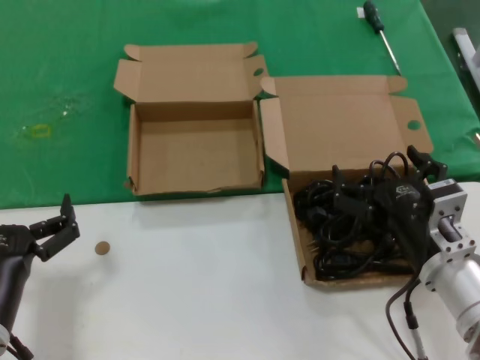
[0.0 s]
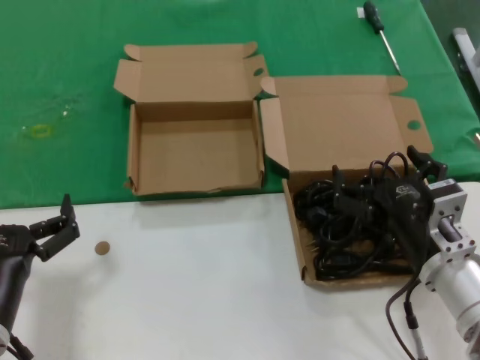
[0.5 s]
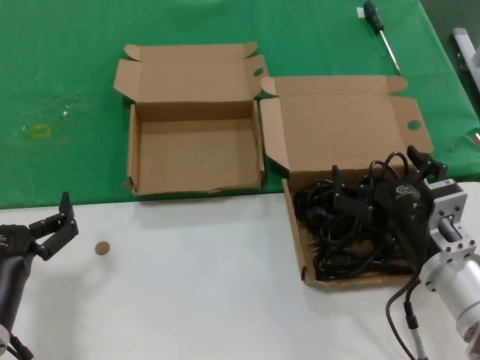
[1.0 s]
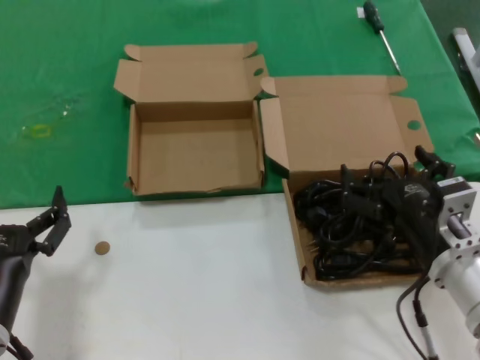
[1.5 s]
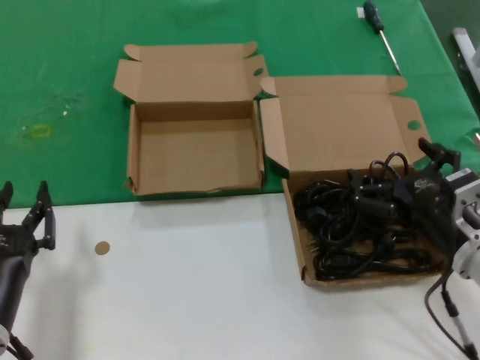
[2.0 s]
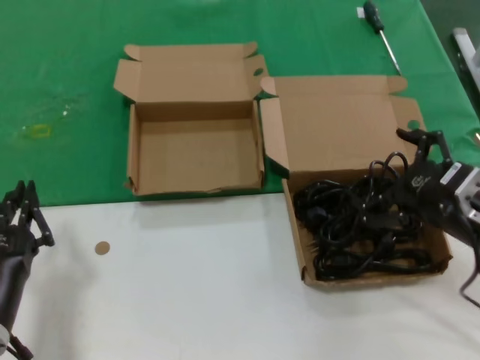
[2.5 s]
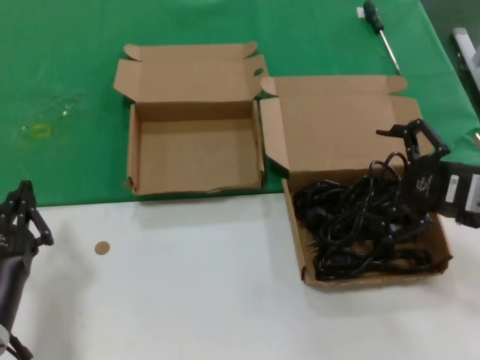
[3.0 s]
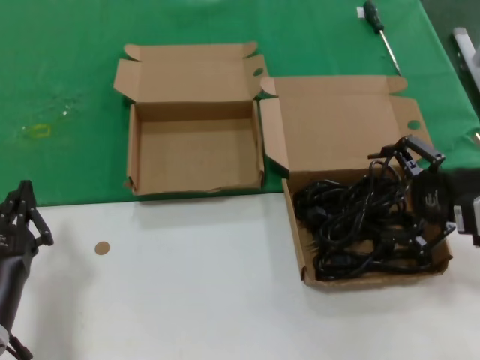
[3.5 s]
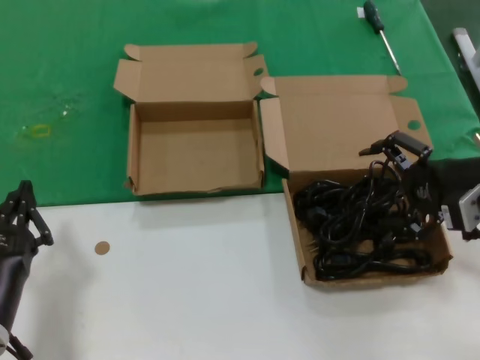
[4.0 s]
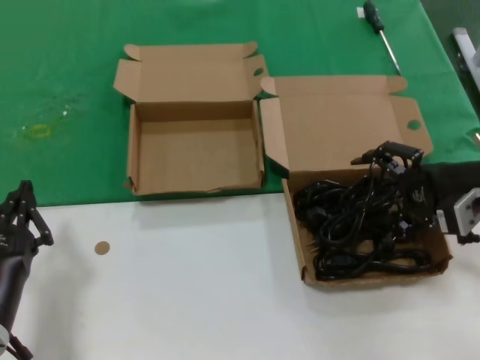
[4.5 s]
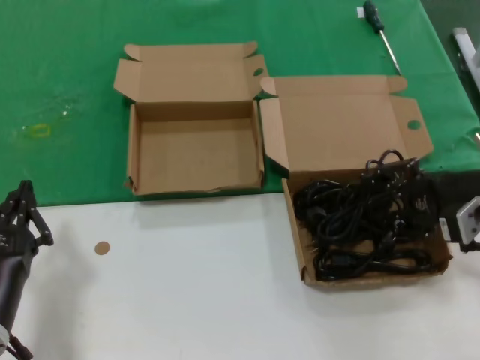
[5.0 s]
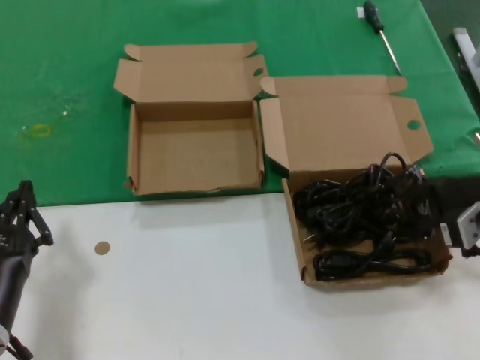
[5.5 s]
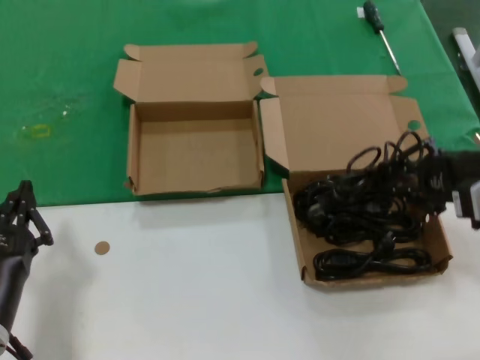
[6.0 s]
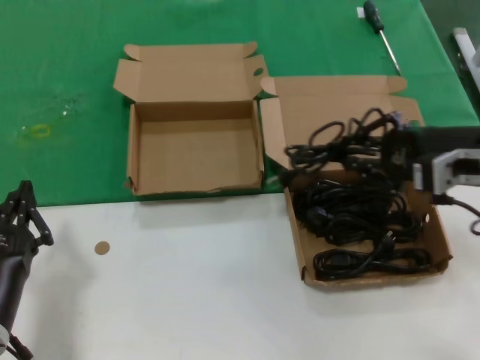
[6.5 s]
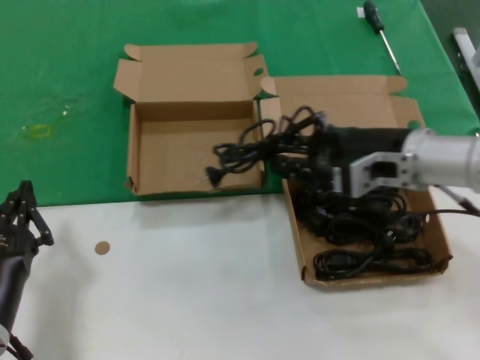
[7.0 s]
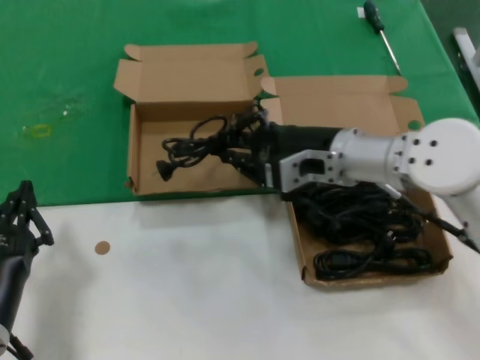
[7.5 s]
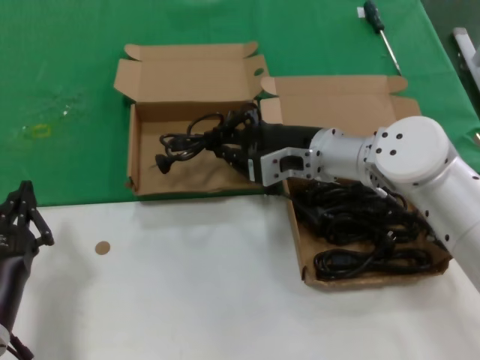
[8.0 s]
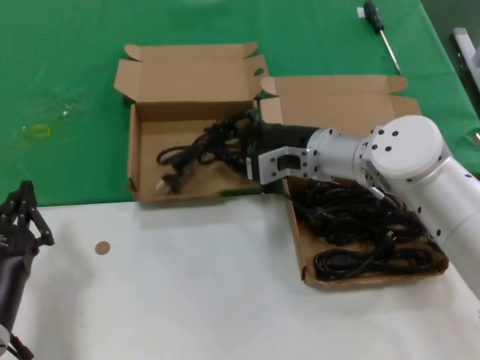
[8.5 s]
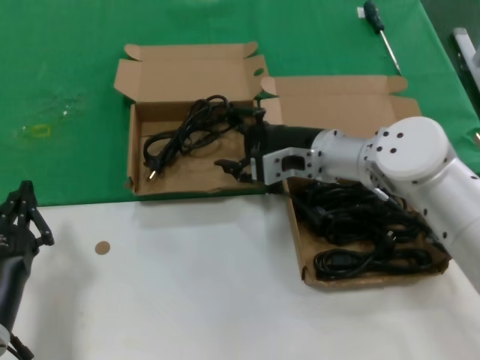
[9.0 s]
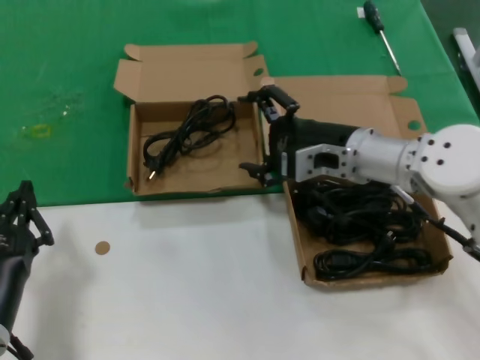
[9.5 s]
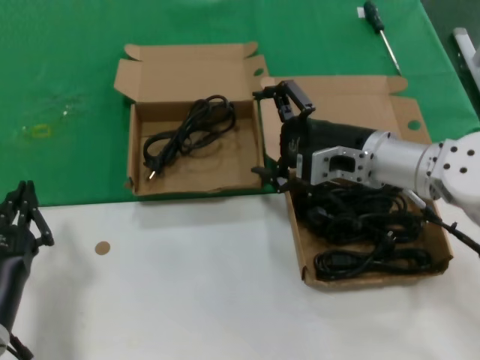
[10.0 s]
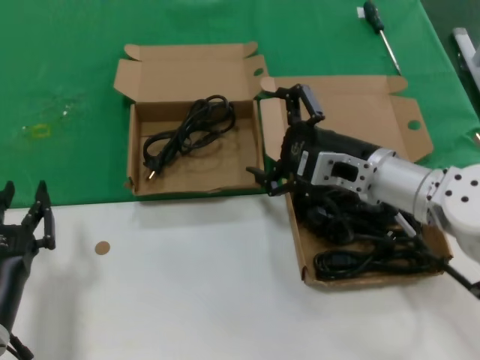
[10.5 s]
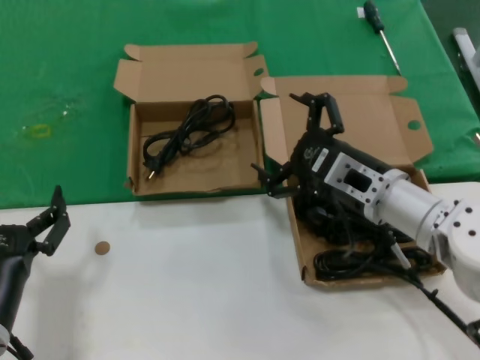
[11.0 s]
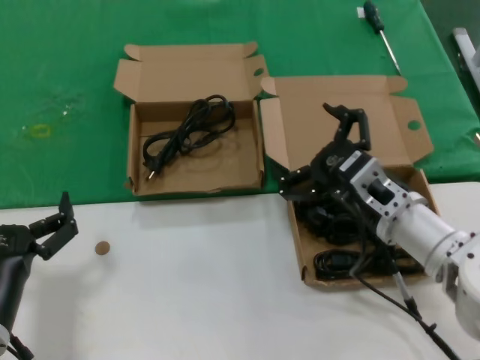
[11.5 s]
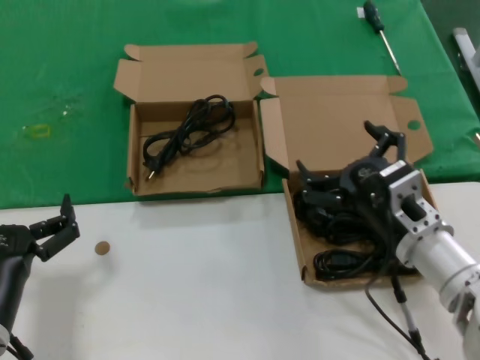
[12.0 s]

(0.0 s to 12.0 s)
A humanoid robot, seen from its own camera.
Task of the whole recording: take the parts from the box containing them and put them into an empty box.
Step, 0.0 s - 5.5 s: Grasp the data cable.
Step, 6.0 s - 8.5 s: Place the data cable in the another box.
0.0 s - 2.0 s: The hands move only a little.
2.0 s - 4.0 s: The right hand travels upward, to the right and forward by approximately 15 cm.
4.0 s - 6.0 s: The hands stay close to where they were, moving slightly.
6.0 s - 8.0 s: The right hand goes approximately 25 cm to the left and forward.
8.0 s - 10.0 s: The right hand goes about 5 cm to the right.
10.0 s - 12.0 s: The right hand shifts some 15 cm backward and downward.

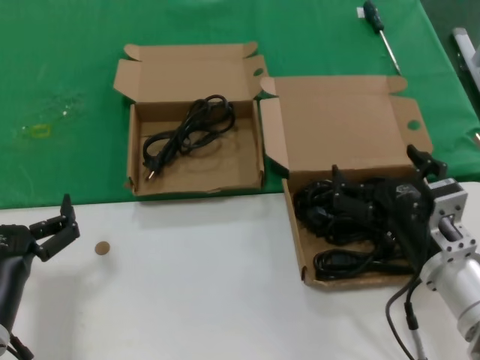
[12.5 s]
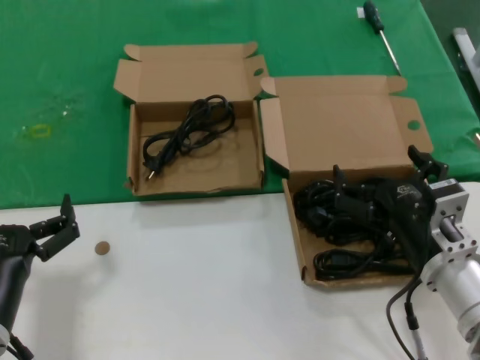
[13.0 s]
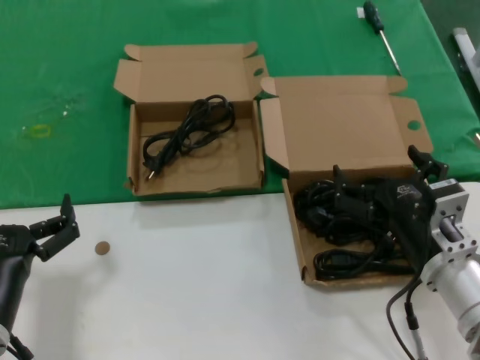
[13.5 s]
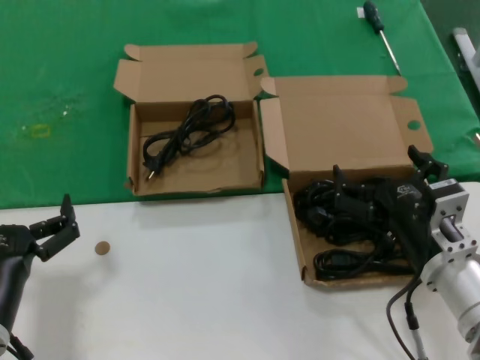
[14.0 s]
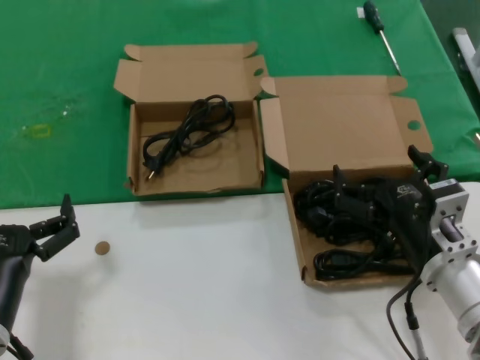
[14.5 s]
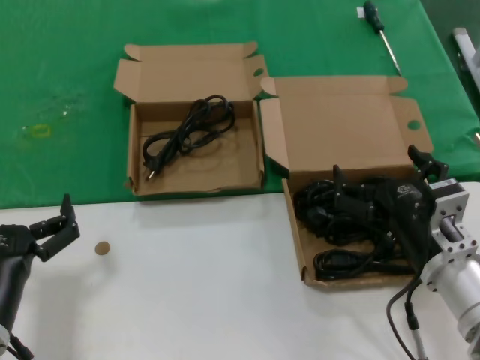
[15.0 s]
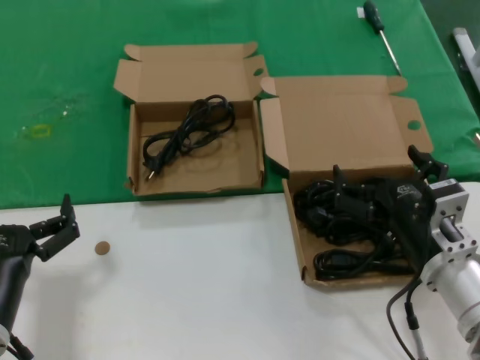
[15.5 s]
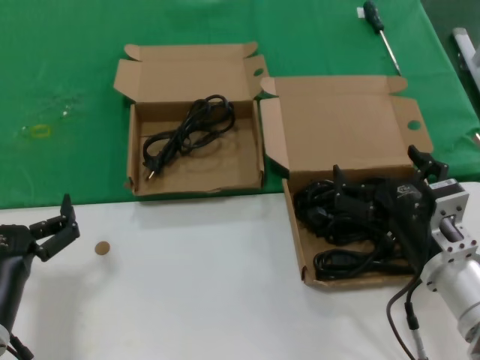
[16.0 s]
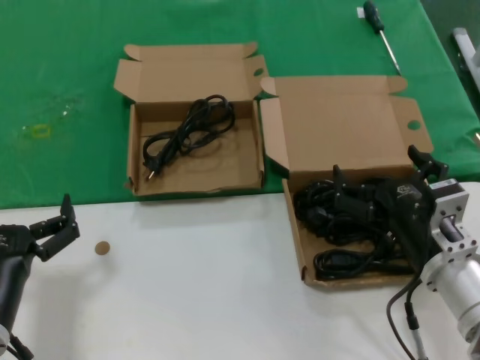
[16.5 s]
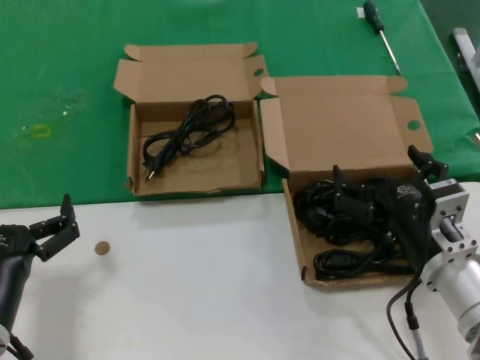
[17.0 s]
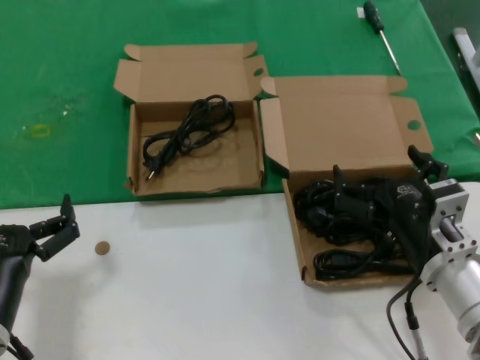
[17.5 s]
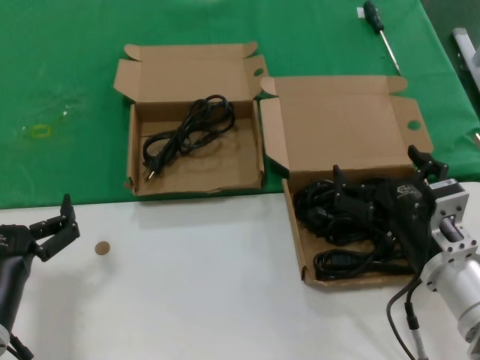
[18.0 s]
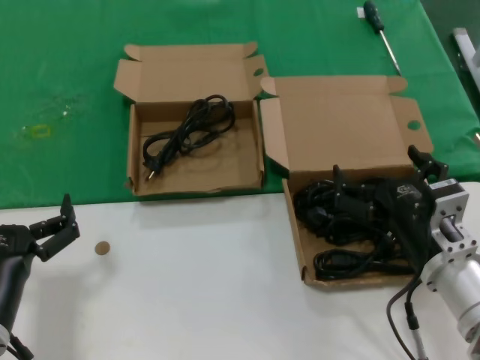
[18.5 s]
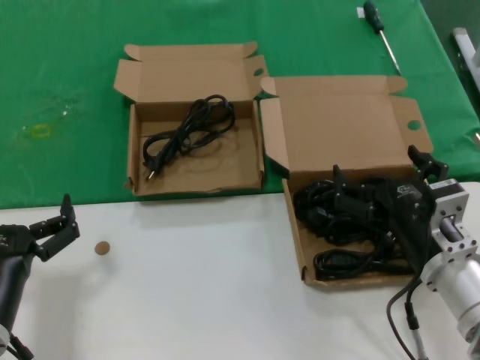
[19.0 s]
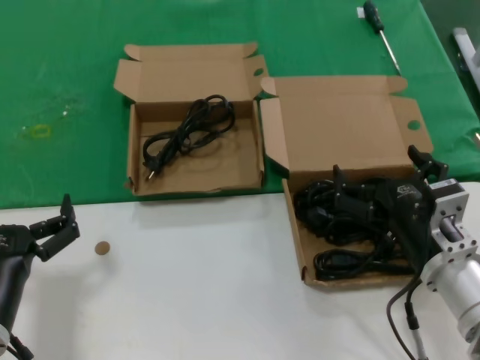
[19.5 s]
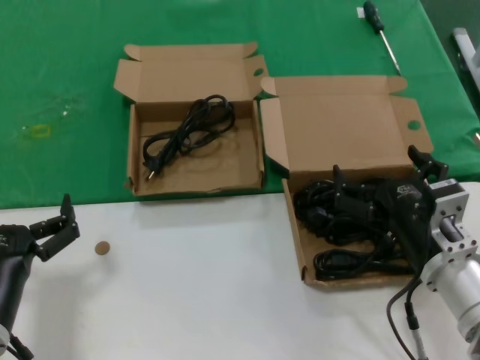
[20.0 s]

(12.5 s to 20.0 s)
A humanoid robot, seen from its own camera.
Task of the whole recording: take the parts from the box containing them and put them into an empty box.
12.5 s - 20.0 s: Both hands stay put.

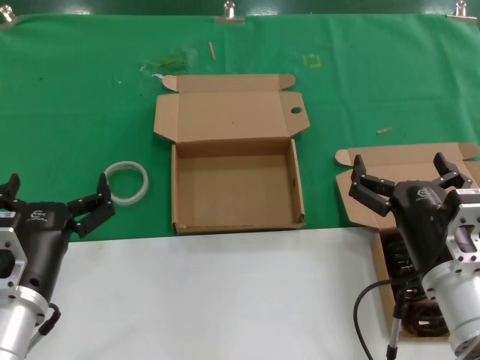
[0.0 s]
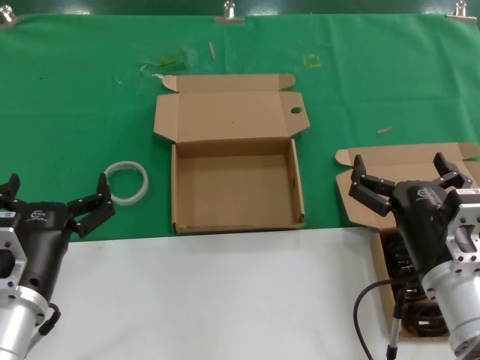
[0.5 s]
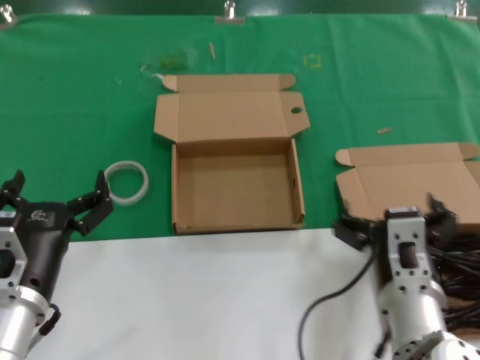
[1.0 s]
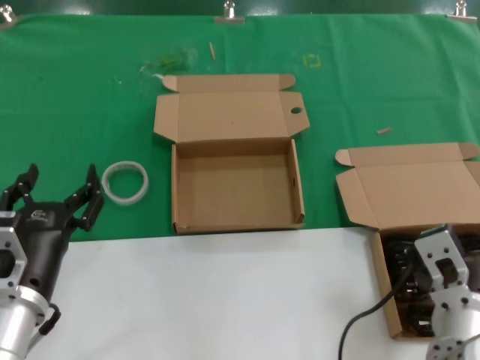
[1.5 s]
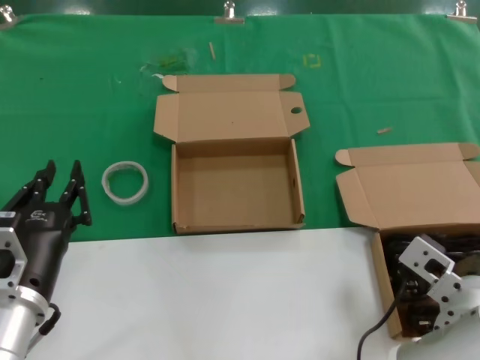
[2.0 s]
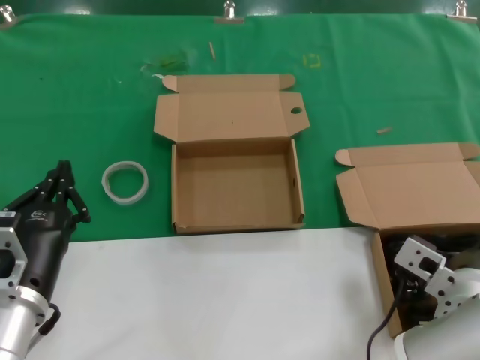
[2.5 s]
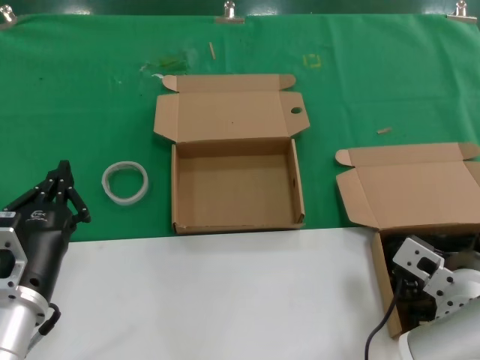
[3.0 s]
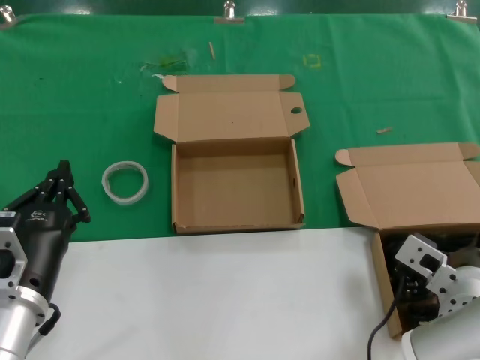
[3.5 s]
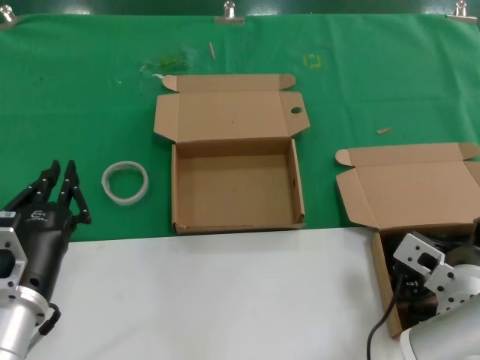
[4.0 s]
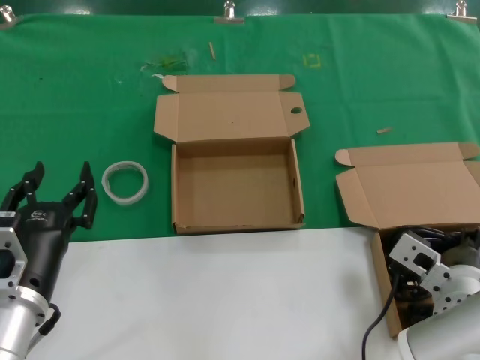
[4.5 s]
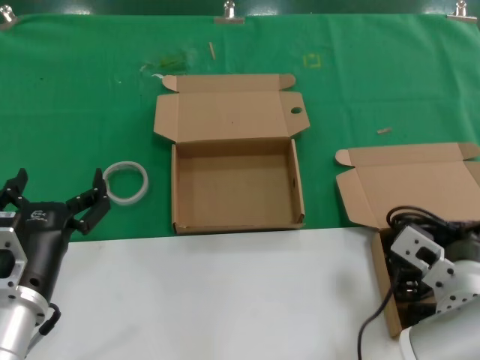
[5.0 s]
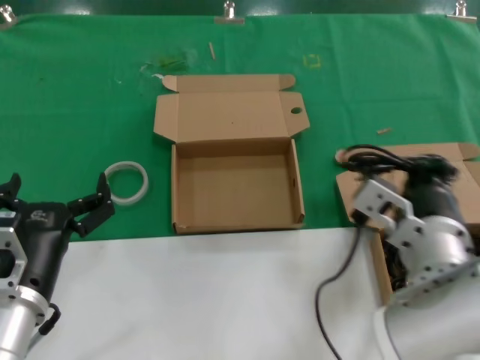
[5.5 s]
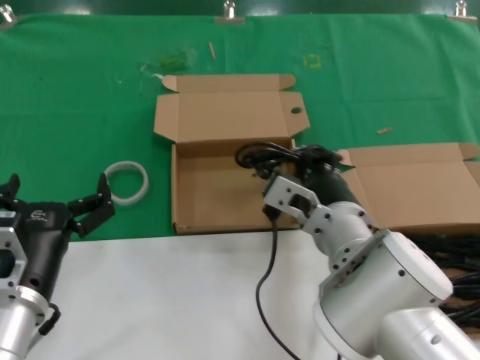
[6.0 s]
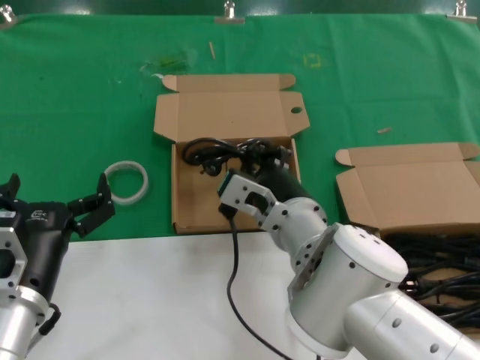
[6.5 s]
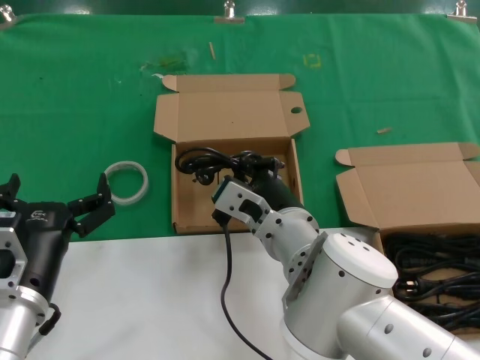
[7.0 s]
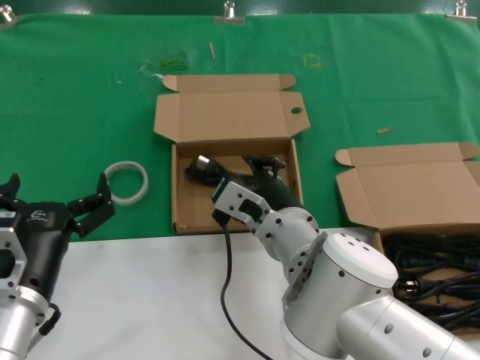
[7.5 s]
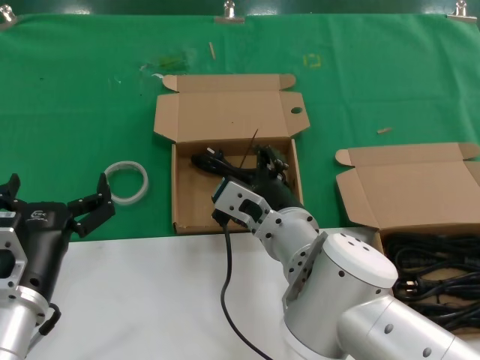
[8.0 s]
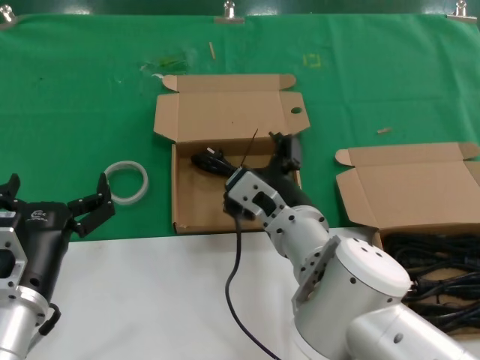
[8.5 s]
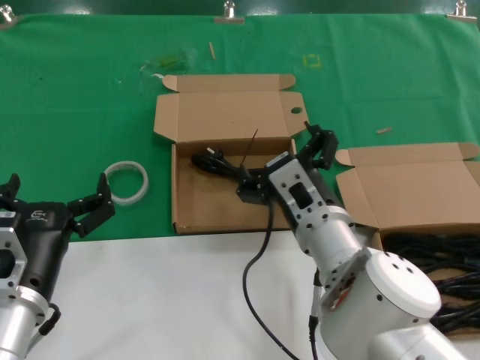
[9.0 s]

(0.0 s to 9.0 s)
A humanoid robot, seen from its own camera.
Task of the whole recording: take the parts from the box containing them and put them into an empty box.
Step, 0.0 s - 4.5 s: Grasp the data cable.
Step, 5.0 s - 7.0 s: Place the data cable in the another box.
2.0 s - 4.5 s: The right hand ends up roughly 5 cm from where it was.
4.5 s - 7.0 s: The right hand goes approximately 15 cm to the left.
